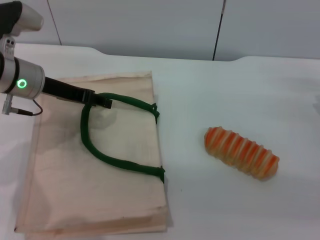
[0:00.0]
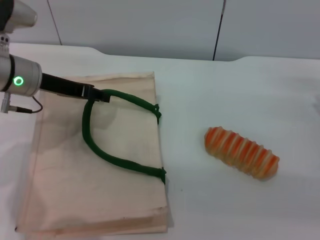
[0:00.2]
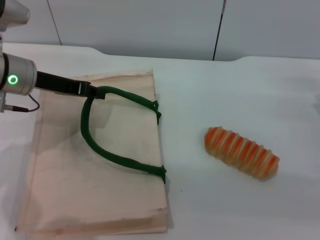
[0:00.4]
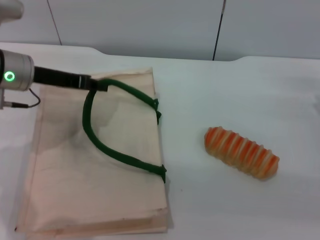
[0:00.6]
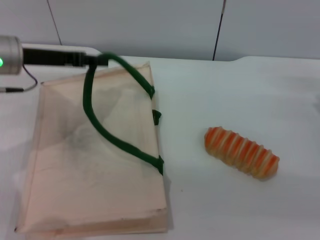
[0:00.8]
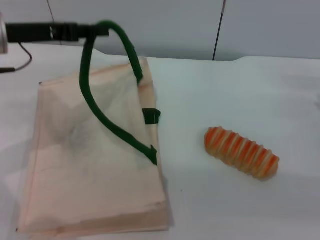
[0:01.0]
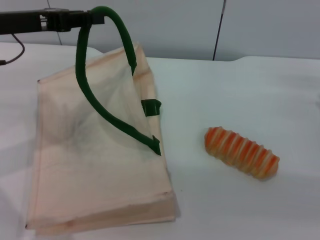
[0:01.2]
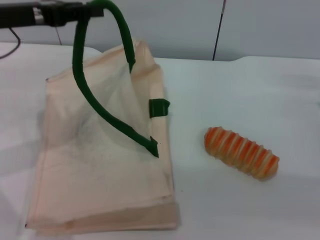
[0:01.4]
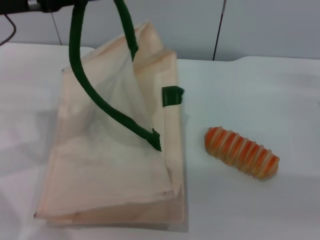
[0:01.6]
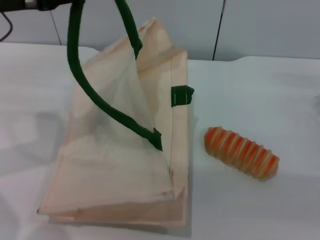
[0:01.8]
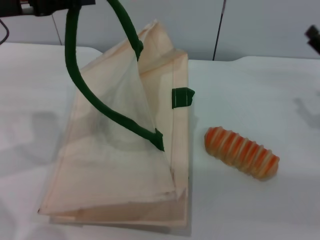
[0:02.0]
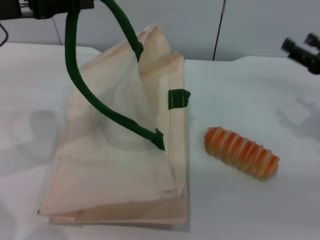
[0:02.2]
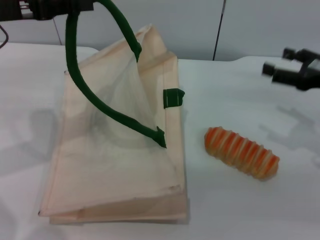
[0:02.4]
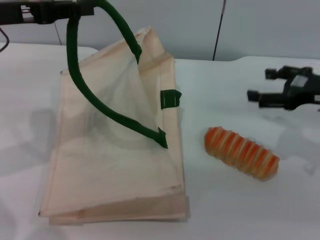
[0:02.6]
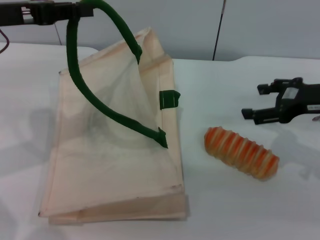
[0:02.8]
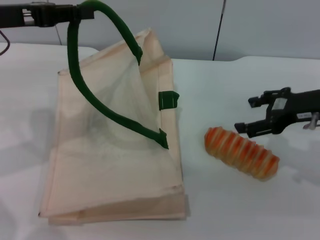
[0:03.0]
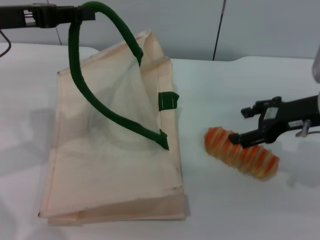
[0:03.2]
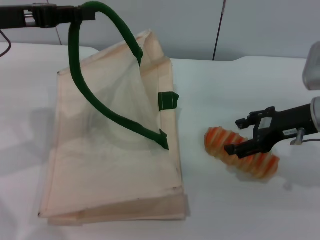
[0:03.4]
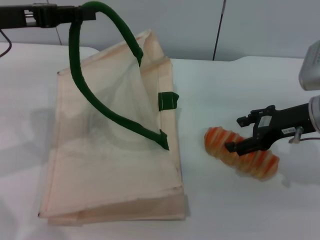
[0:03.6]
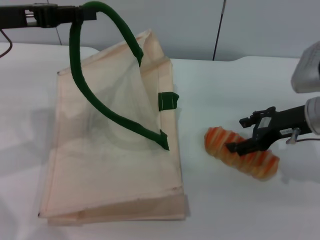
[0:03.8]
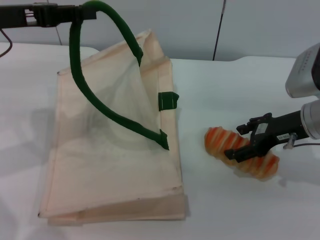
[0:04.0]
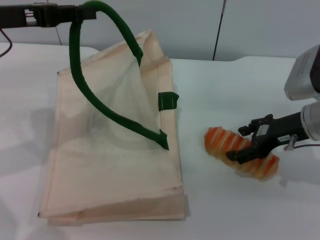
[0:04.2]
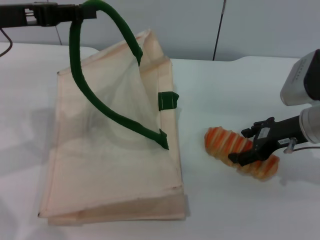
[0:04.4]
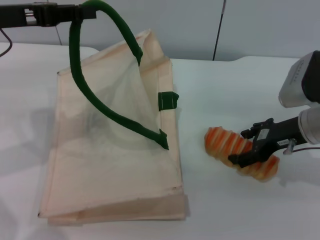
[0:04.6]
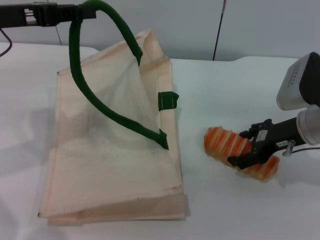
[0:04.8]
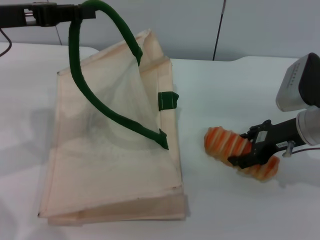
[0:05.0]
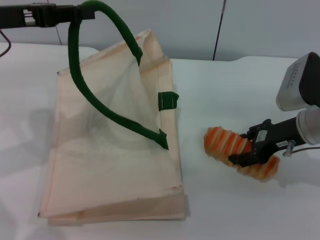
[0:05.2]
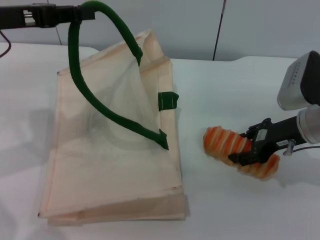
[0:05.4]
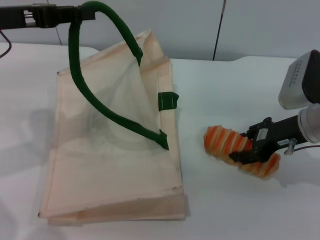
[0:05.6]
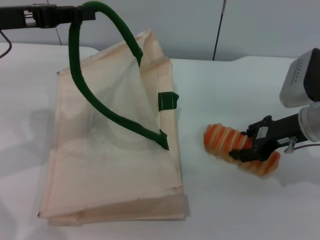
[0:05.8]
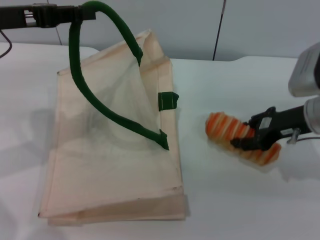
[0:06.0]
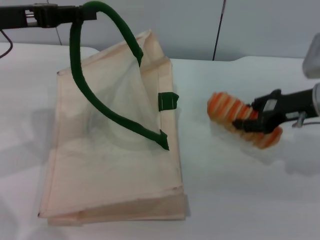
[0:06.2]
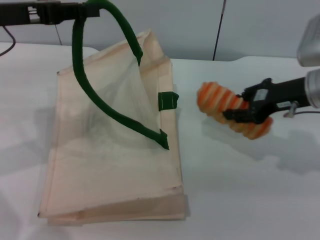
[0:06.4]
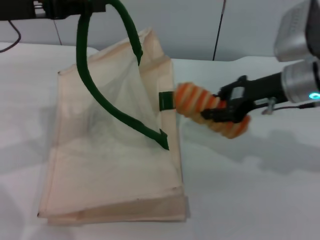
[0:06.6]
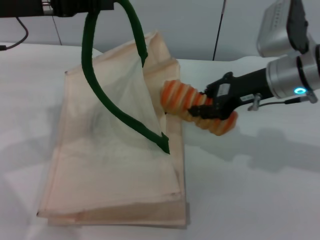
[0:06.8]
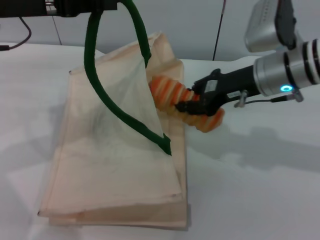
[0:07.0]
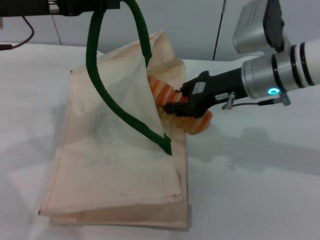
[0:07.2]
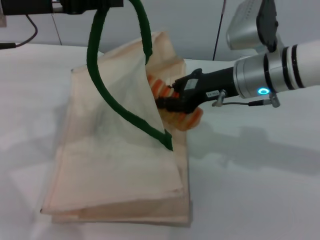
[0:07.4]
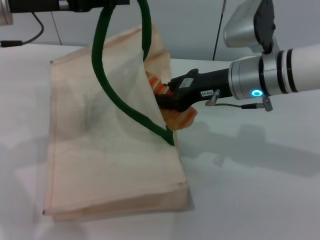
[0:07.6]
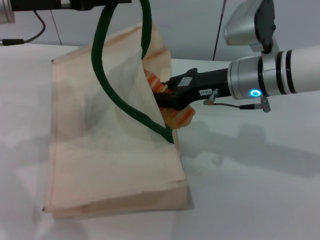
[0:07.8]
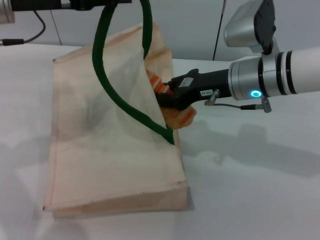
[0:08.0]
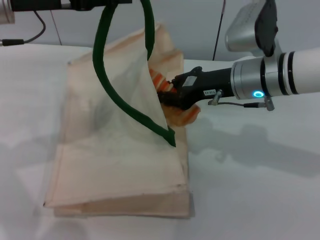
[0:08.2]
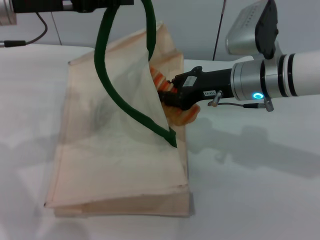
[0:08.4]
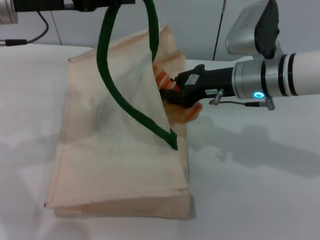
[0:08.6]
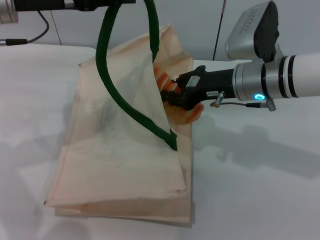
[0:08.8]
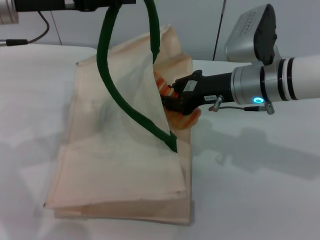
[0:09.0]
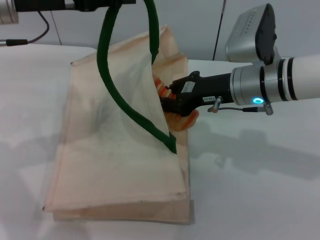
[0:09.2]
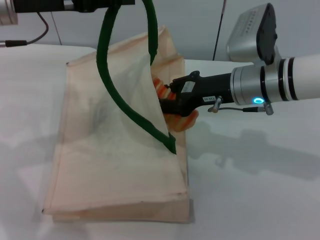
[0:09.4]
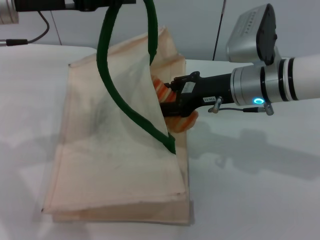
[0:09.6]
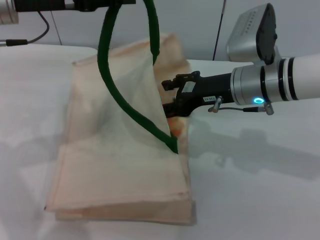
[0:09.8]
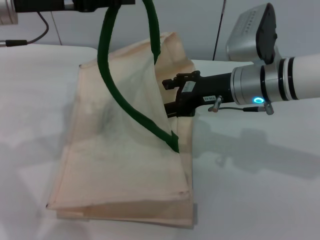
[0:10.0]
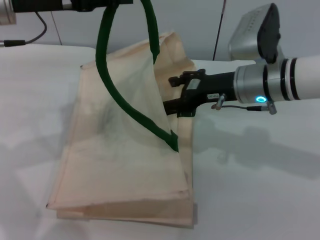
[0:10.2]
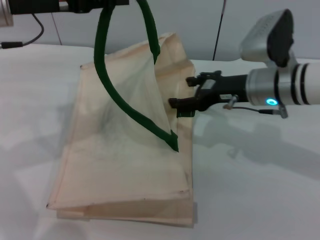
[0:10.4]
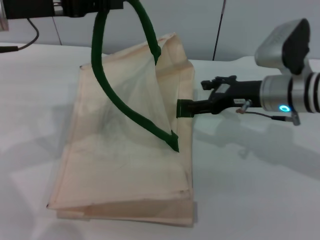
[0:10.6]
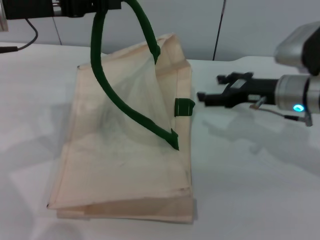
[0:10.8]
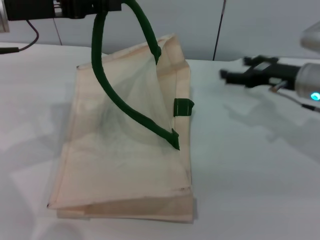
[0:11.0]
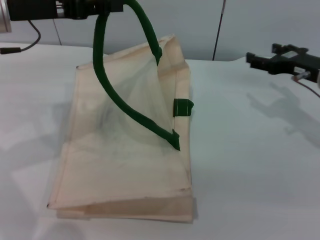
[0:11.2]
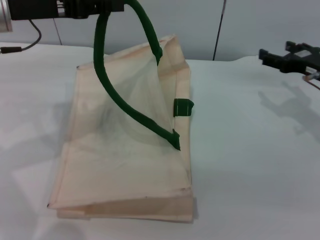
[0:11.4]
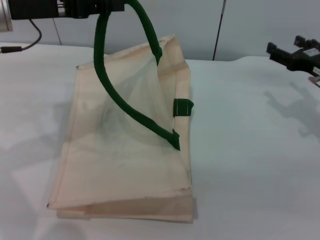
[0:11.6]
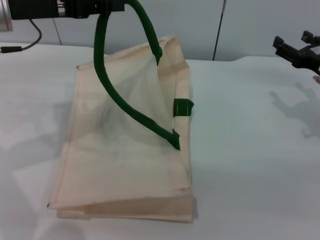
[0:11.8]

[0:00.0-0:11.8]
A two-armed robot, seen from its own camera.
Task of the whole recording: pick up the bread from the table and place it in the white handbag.
Step, 0:01.8 to 0:06.0: Pick up the bread with the right gripper.
Step, 0:06.4 to 0:10.4: Place the bread into the woven bag with the right gripper.
0:00.0 to 0:01.4: The left gripper shifts approximately 10 cm upward, and closes up.
0:01.4 to 0:03.0: The right gripper is displaced upward and to the left by roughly 10 cm.
0:03.0 to 0:04.4: The right gripper moves approximately 5 cm.
0:04.4 to 0:06.0: The right gripper closes up.
0:06.0 to 0:07.4: The right gripper travels to the left by roughly 10 cm, and closes up.
0:07.4 to 0:08.8: There are only small adjustments of the grippers.
0:08.8 to 0:10.4: The right gripper opens.
0:10.4 to 0:11.8: The right gripper travels to the right by some 15 cm.

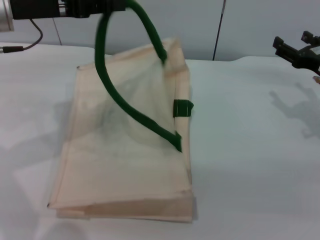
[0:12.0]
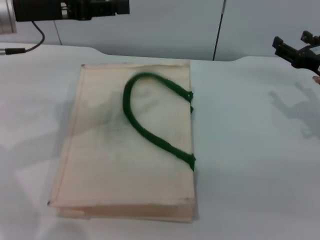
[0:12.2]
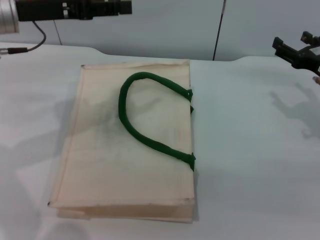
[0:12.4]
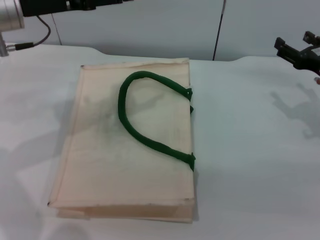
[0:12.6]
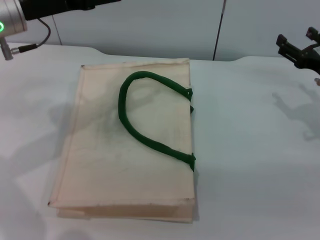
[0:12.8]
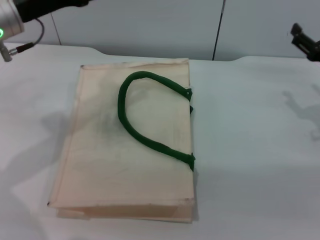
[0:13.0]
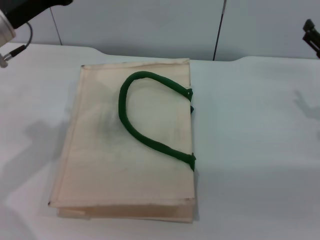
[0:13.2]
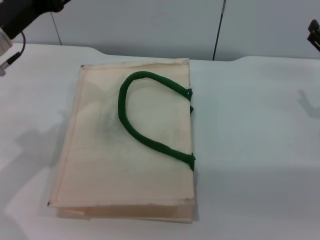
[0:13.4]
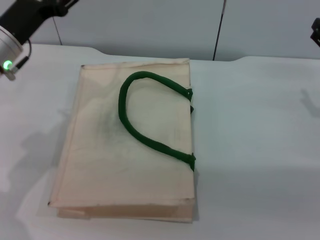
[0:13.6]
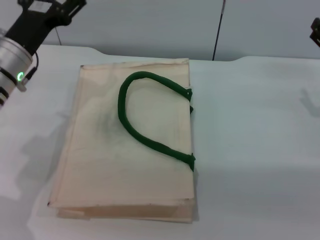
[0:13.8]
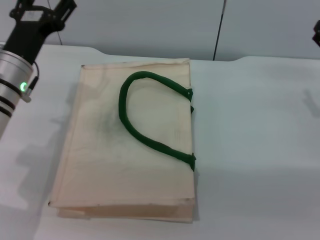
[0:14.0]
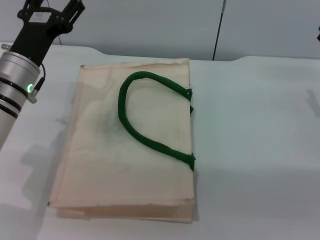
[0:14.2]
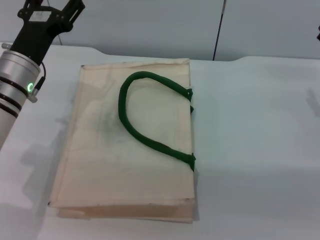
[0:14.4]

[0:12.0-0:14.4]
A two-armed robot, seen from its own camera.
Task of the whole recording: pick up the bread from the table and place it in the white handbag.
0:12.0 to 0:13.2: The left gripper moves approximately 5 cm, and opens up.
0:13.2 to 0:14.4: The left gripper goes roughly 10 cm downward.
